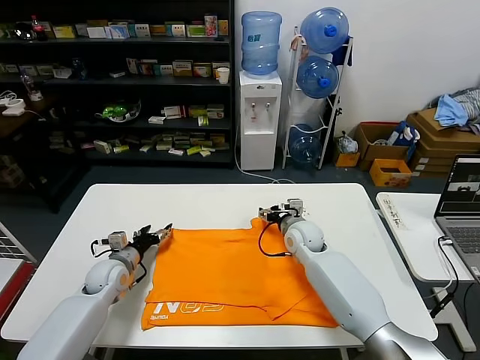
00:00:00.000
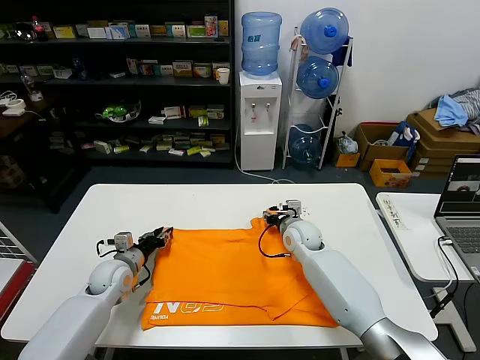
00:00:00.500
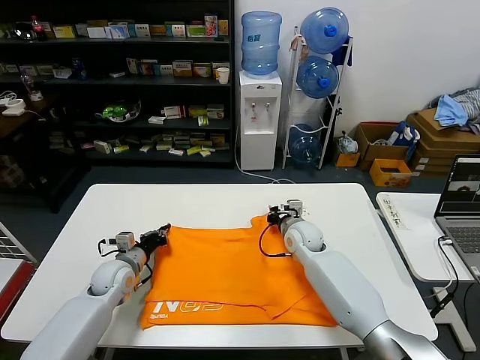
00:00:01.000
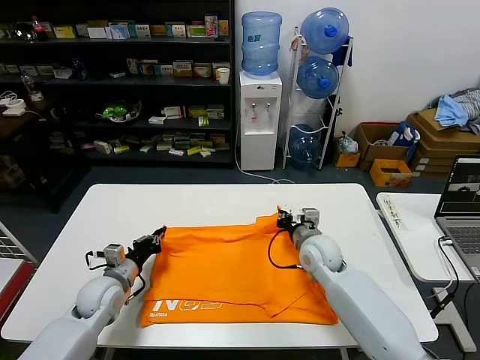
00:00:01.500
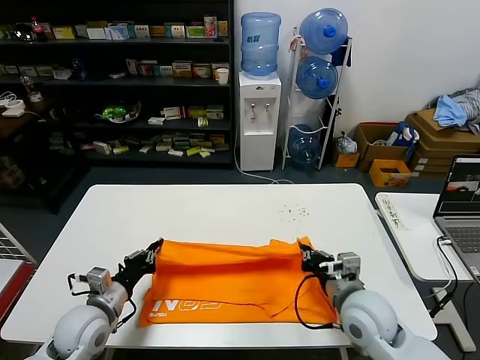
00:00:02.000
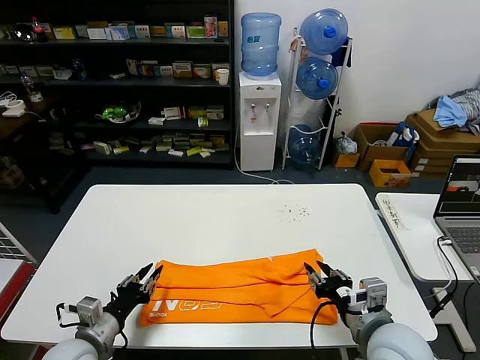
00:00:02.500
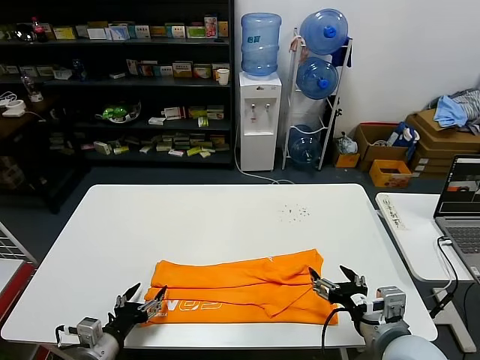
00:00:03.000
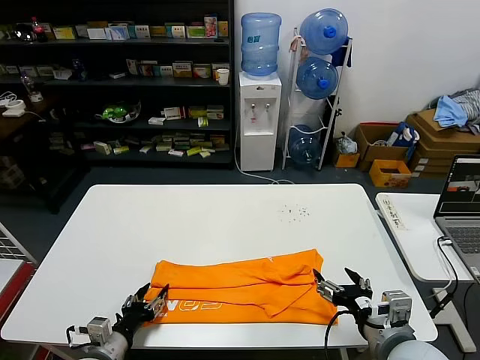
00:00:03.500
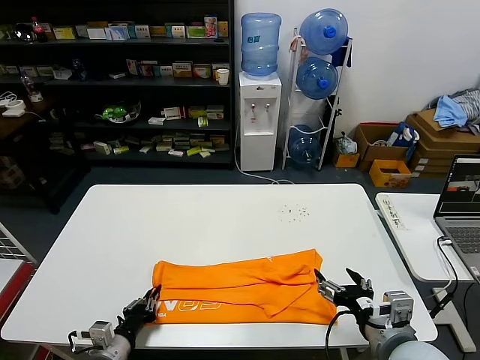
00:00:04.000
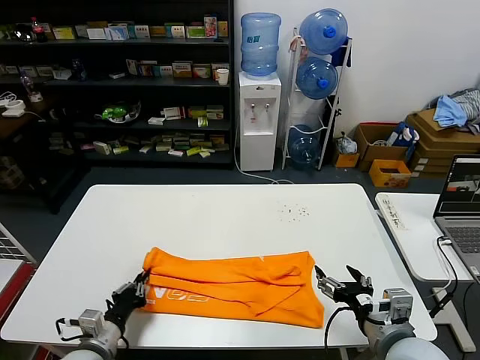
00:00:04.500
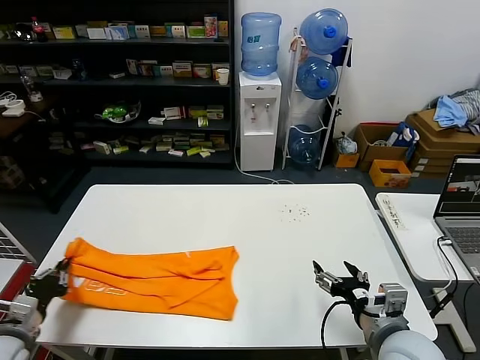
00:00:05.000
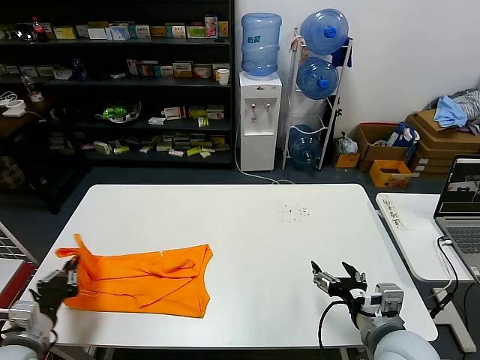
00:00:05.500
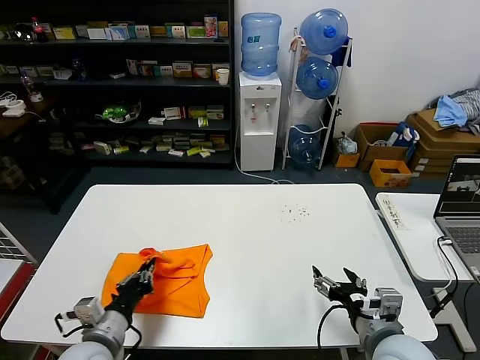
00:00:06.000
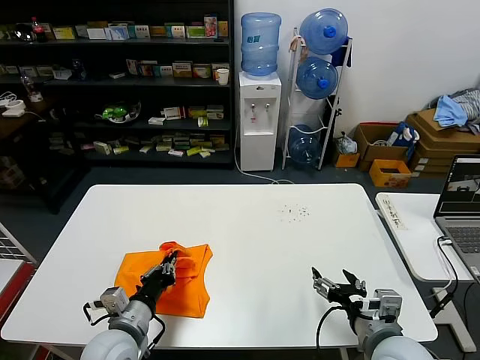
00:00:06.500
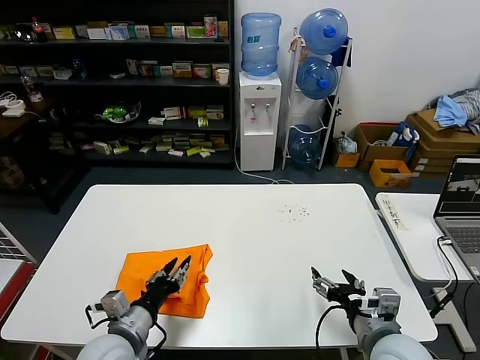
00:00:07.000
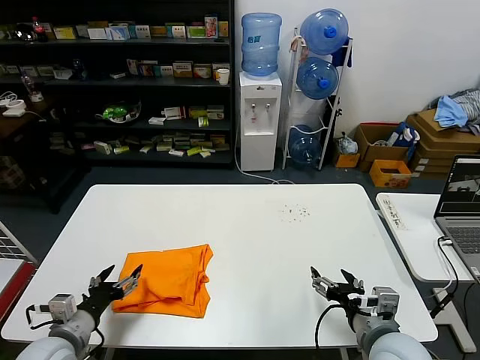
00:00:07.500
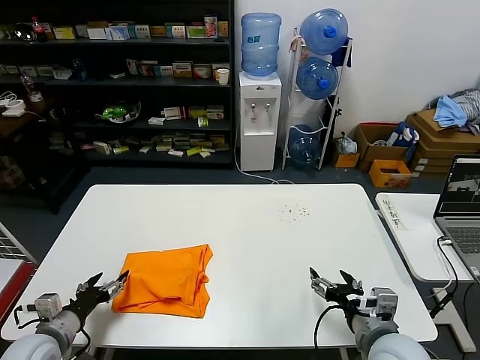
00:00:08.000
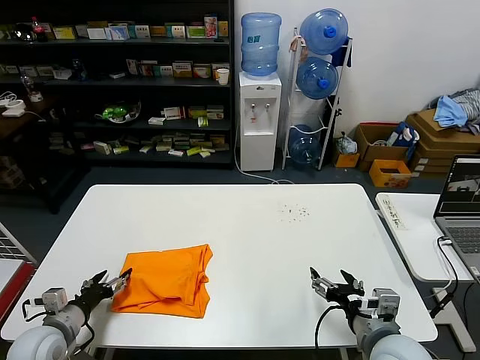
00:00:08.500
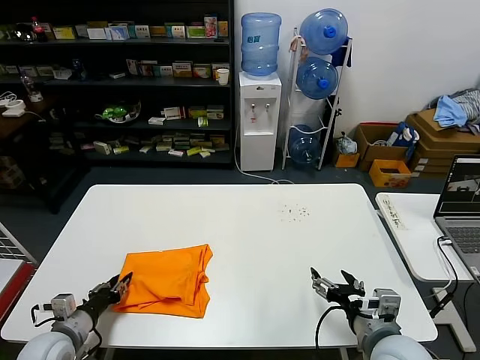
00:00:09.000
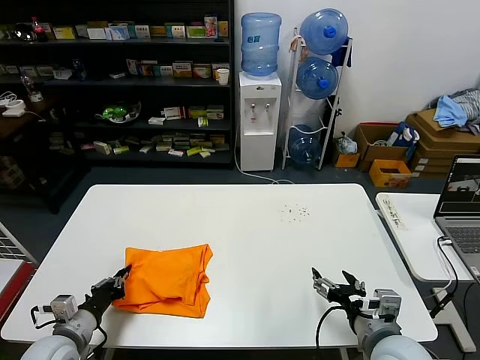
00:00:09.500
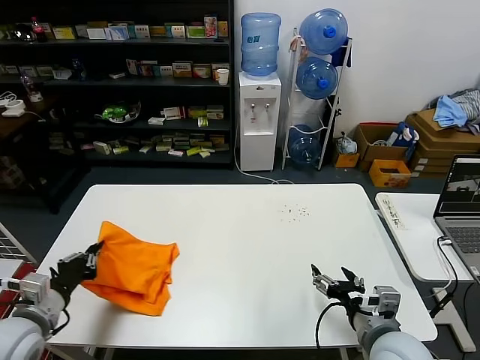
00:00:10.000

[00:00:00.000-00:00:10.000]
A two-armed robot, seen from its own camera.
Task of the whole recording: fold and organize the clothes.
Step, 00:00:01.500 to 00:00:02.000: use both grippers to drag the upper edge of the fabric backward and fold it over the lower edge.
Step, 00:00:02.500 to 00:00:04.000: use the left gripper to clamp the left edge of the fabric.
Step, 00:00:04.500 to 00:00:07.000: use the left gripper to drag the left edge of the fabric to the left and folds it over the right edge.
00:00:00.000 to 00:00:02.000: The right gripper is displaced backward by about 20 cm, and closes, while the left gripper moves backward and upward, roughly 15 cm, and closes up.
00:00:02.000 to 00:00:04.000: The left gripper is displaced backward and downward by approximately 10 cm, and opens, then closes once more; the right gripper goes roughly 10 cm backward, and opens.
00:00:04.000 to 00:00:06.000: The left gripper heads upward, covering some 10 cm, and moves some 15 cm to the left and comes back.
00:00:06.000 to 00:00:08.000: The left gripper shifts roughly 10 cm to the left, and opens up.
00:00:08.000 to 00:00:10.000: The left gripper travels upward by roughly 10 cm, and closes.

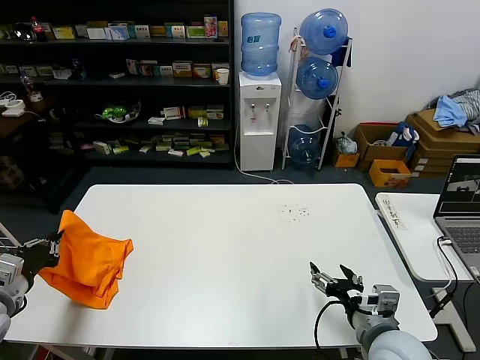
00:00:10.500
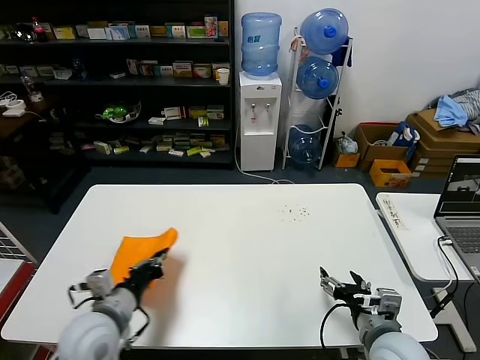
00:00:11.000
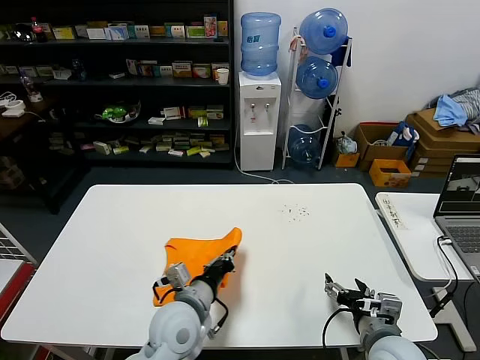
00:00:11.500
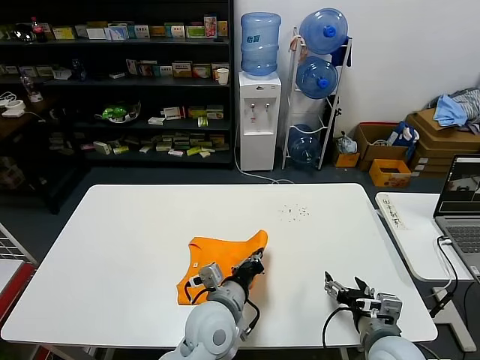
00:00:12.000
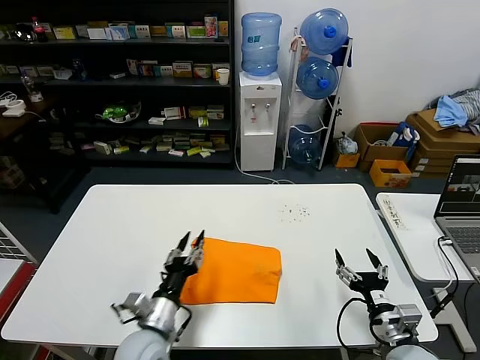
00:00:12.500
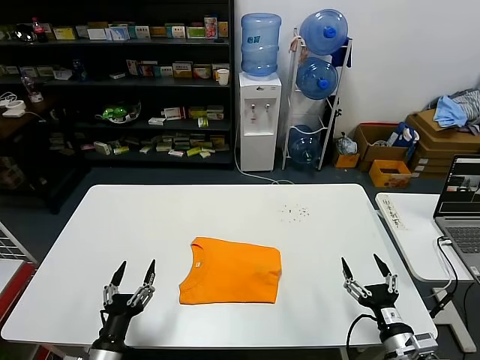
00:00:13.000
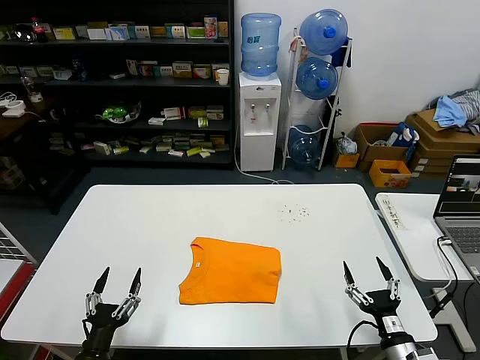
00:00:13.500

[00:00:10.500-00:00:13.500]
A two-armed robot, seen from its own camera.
Task of the whole recording: fold and organize the clothes.
00:00:10.500 to 00:00:12.000: The left gripper shifts approximately 40 cm to the right.
00:00:12.000 to 00:00:13.500: The right gripper is displaced downward, to the right and backward by roughly 10 cm, while the left gripper heads to the left, backward and downward, covering some 30 cm, and opens up.

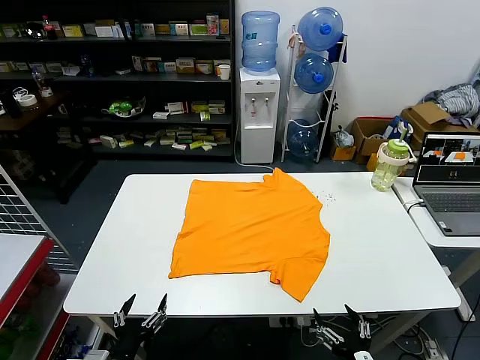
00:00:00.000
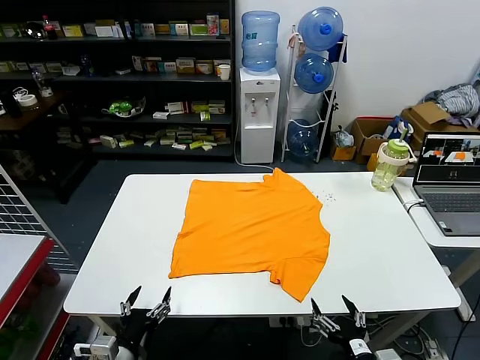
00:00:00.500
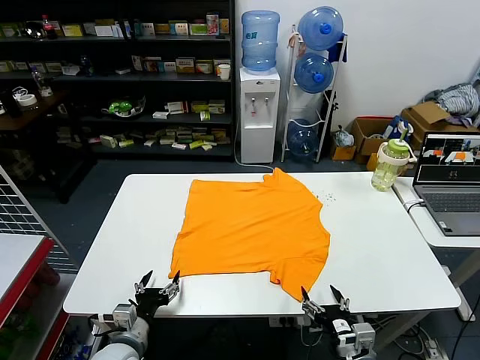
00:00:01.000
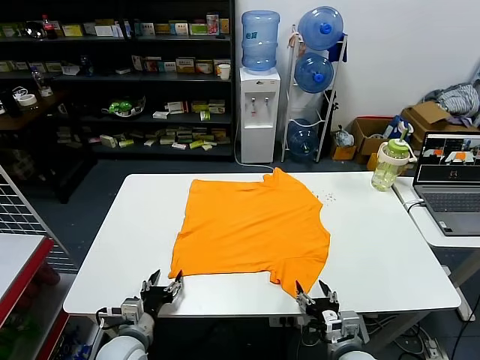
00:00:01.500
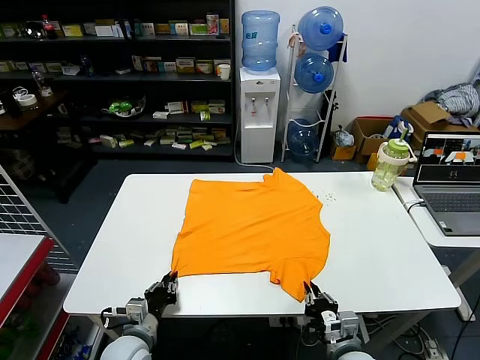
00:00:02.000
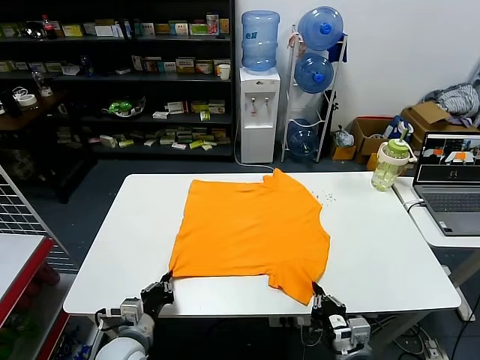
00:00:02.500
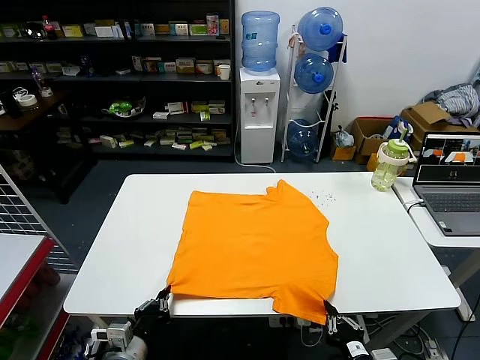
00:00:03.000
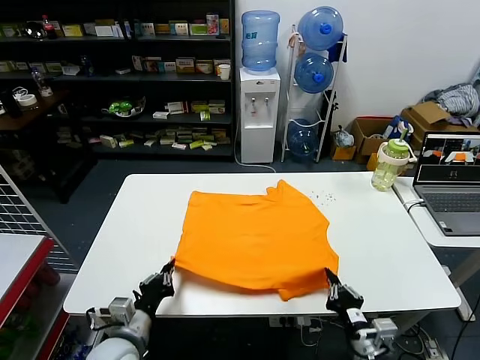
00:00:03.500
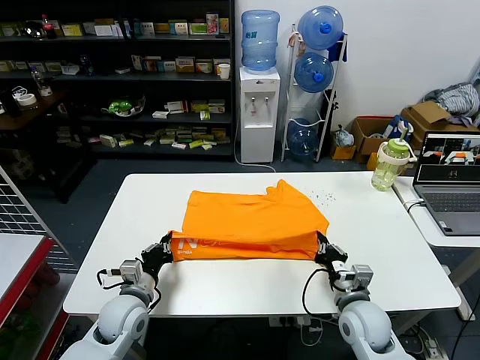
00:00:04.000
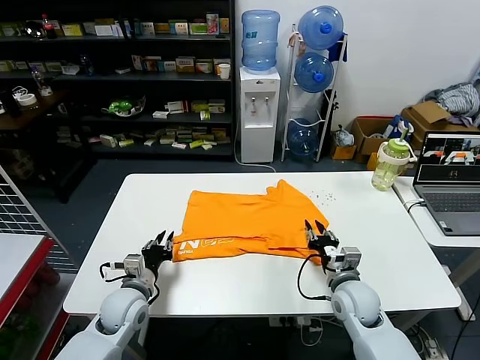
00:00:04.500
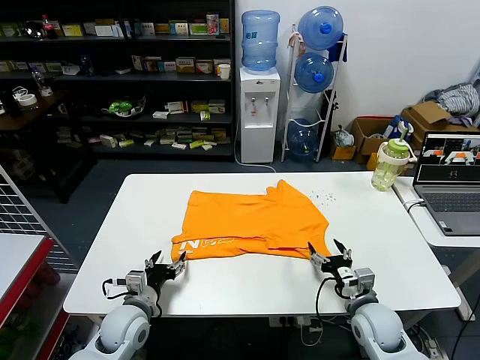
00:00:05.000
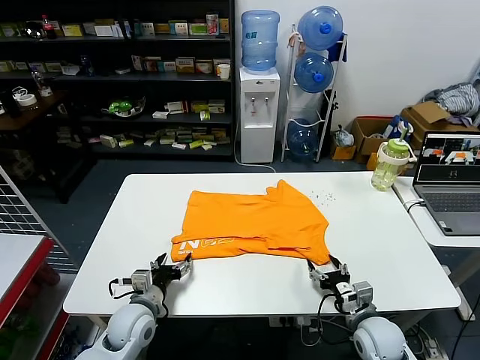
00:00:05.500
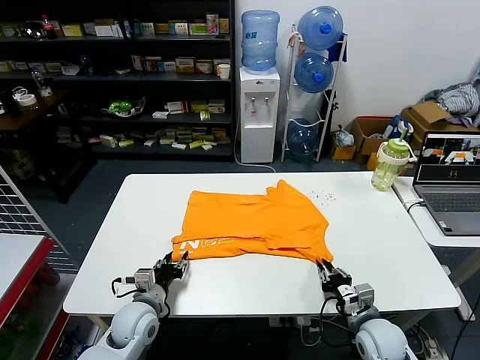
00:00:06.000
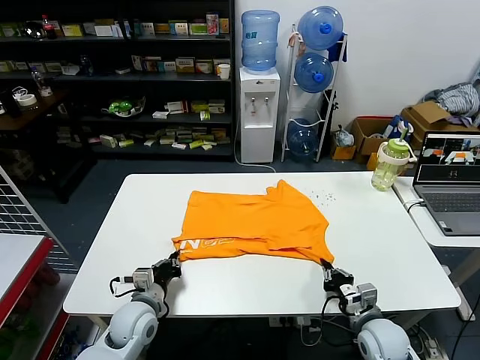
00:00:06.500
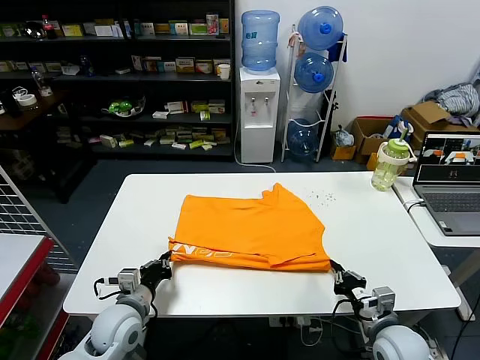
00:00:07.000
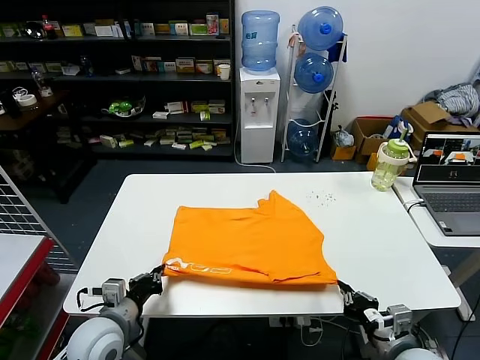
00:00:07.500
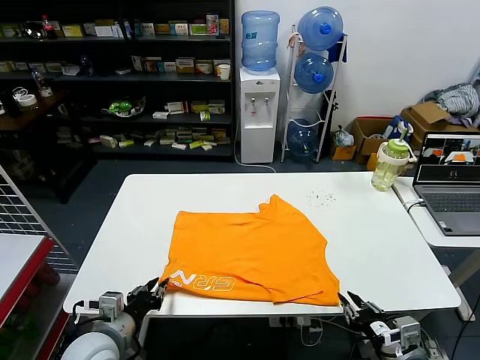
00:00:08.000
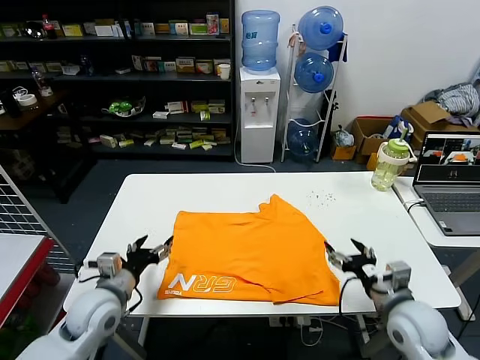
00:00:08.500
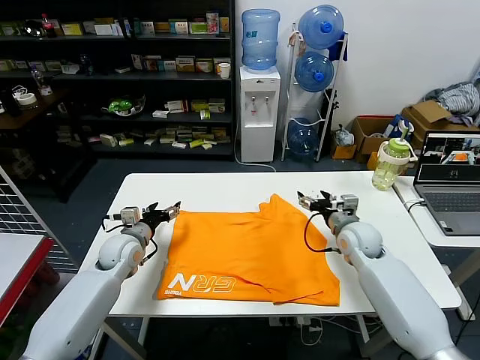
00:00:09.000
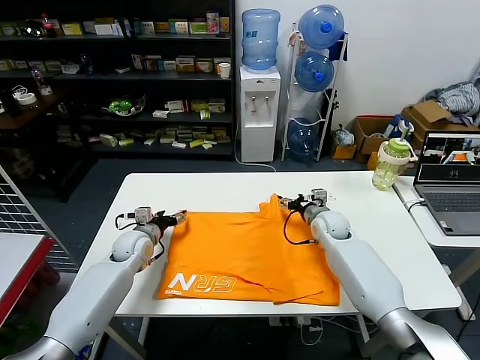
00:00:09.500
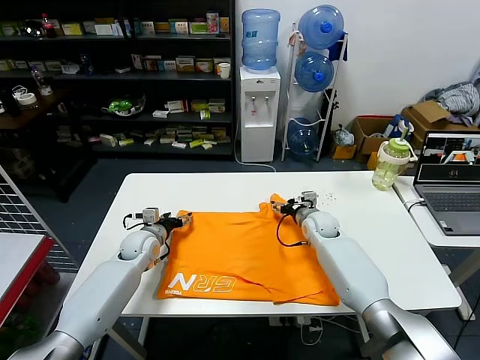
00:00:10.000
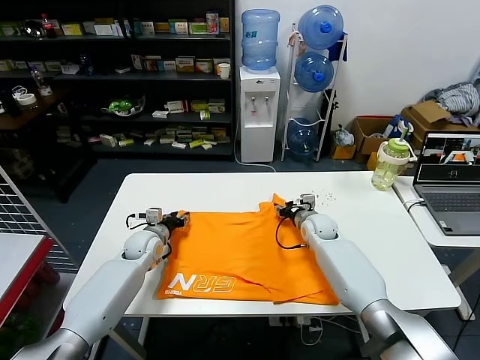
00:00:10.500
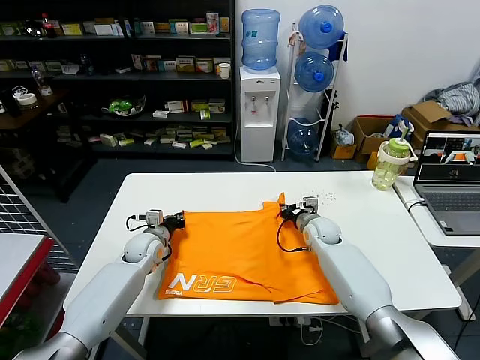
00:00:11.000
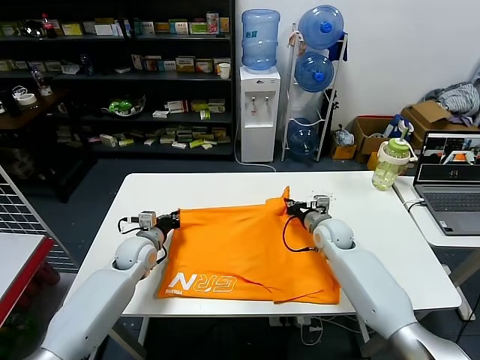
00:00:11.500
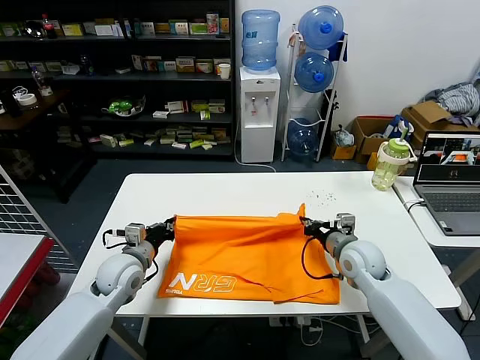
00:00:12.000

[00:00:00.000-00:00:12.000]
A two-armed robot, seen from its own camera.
Task of the whole recording: fold and organize the clothes.
Step, 00:00:00.000 to 00:00:02.000: use both grippers simultaneously to clamp the lower edge of the clothing fabric.
Step, 00:00:02.500 to 00:00:04.500: use both grippers to drag the lower edge of the fabric forward and fold it over the upper edge.
Step, 00:00:05.000 to 00:00:08.000: Drag the clothes downward with both gripper.
Step, 00:00:08.500 to 00:00:11.000: use both grippers simultaneously to clamp the upper edge of the clothing fabric.
00:00:02.000 to 00:00:04.000: The grippers both shift forward by about 10 cm.
00:00:04.000 to 00:00:06.000: The right gripper moves downward, some 5 cm, and opens, then closes again. Meanwhile the left gripper opens its fingers.
00:00:06.000 to 00:00:08.000: The two grippers go approximately 15 cm backward and upward. The left gripper closes, then reopens.
00:00:08.000 to 00:00:10.000: Both grippers move forward, roughly 30 cm. The left gripper opens its fingers; the right gripper opens up.
00:00:10.000 to 00:00:12.000: Both grippers travel together backward and upward, about 15 cm. The left gripper closes. The right gripper closes up.
